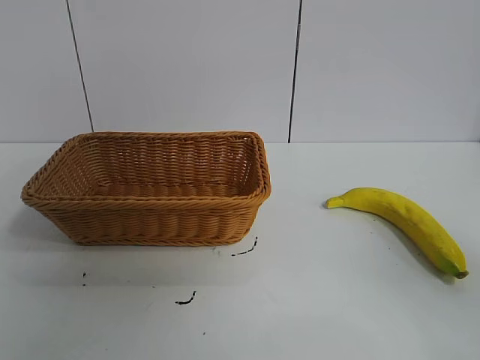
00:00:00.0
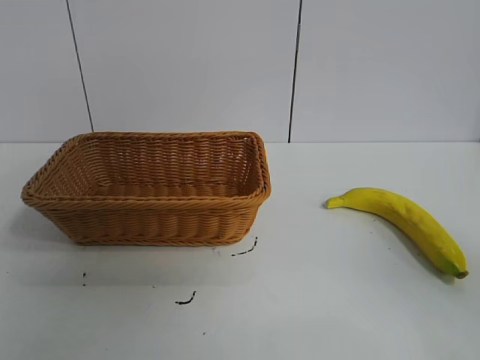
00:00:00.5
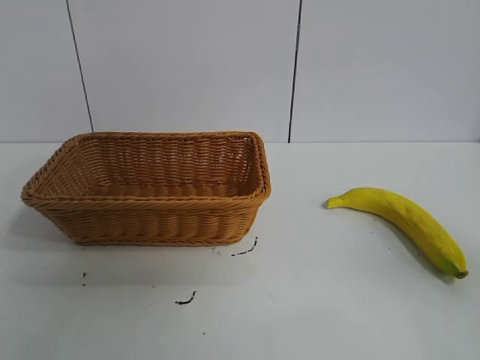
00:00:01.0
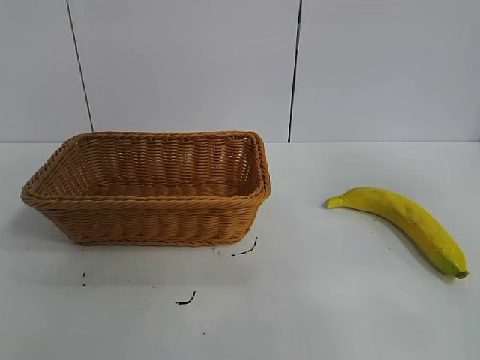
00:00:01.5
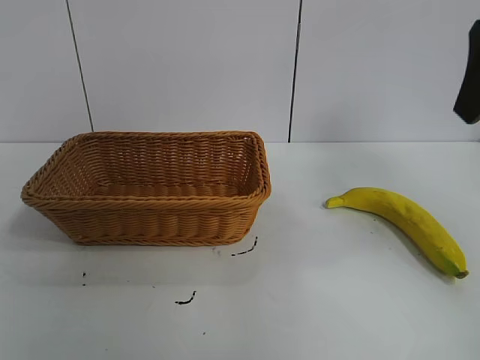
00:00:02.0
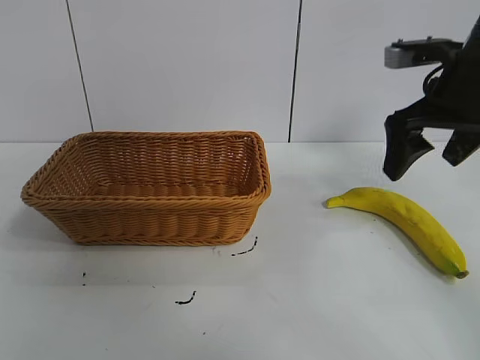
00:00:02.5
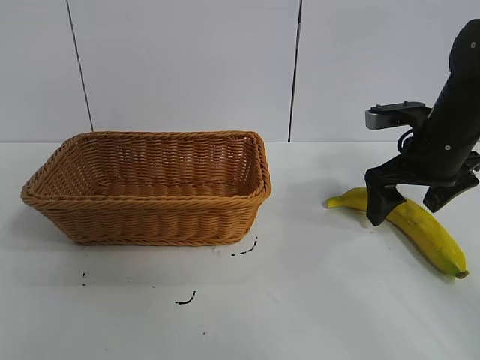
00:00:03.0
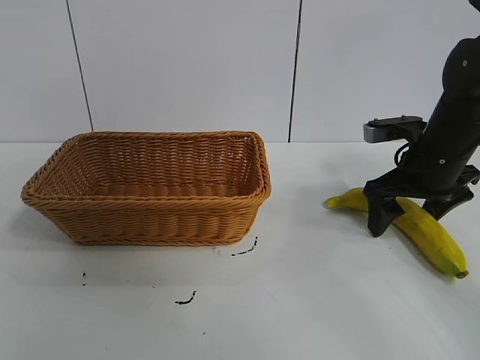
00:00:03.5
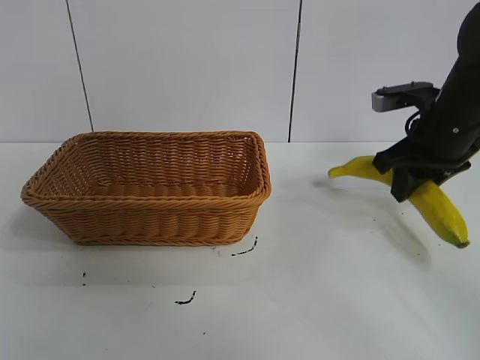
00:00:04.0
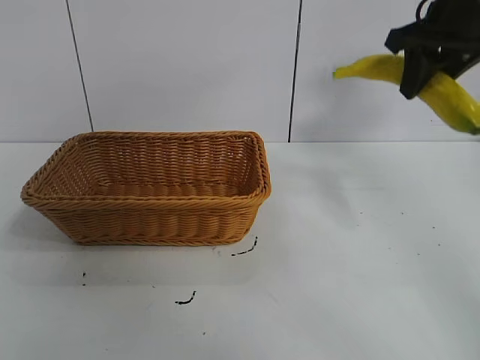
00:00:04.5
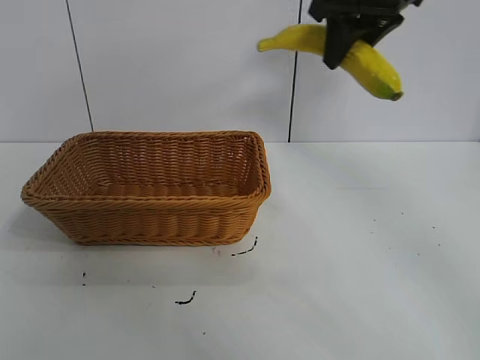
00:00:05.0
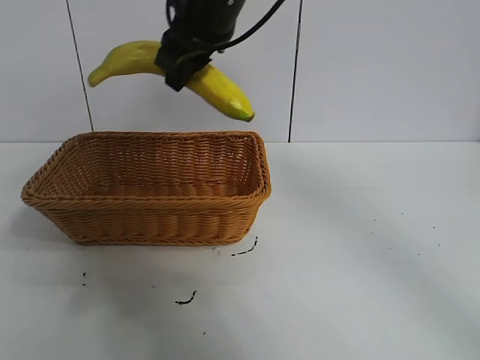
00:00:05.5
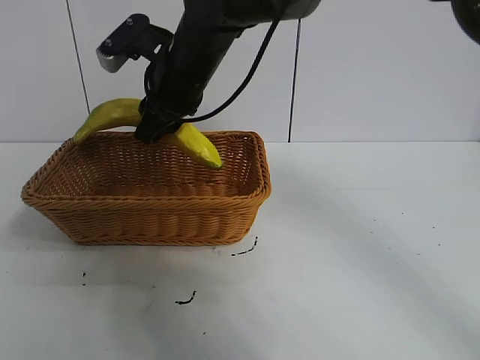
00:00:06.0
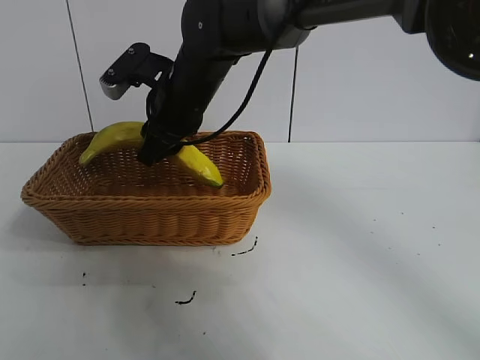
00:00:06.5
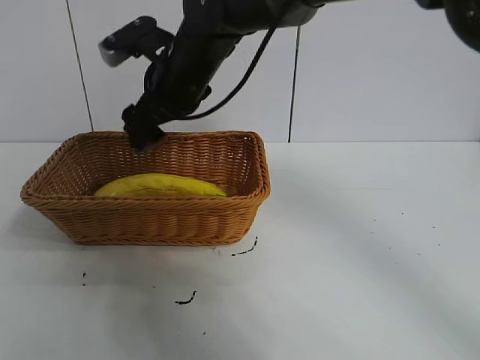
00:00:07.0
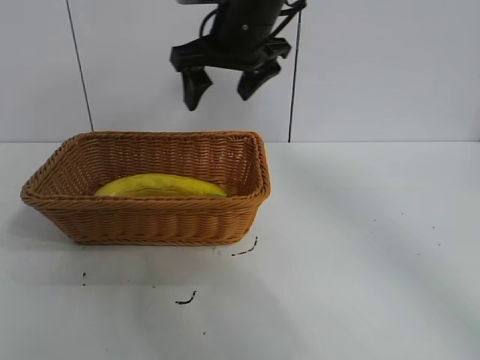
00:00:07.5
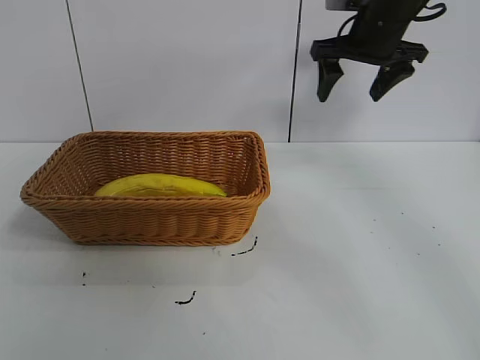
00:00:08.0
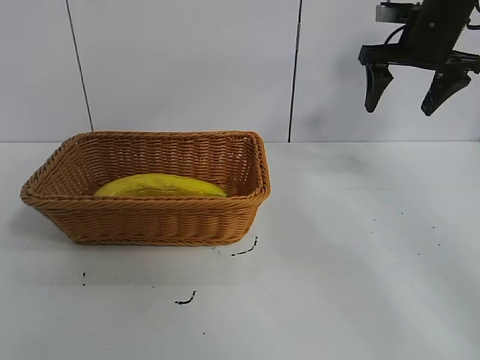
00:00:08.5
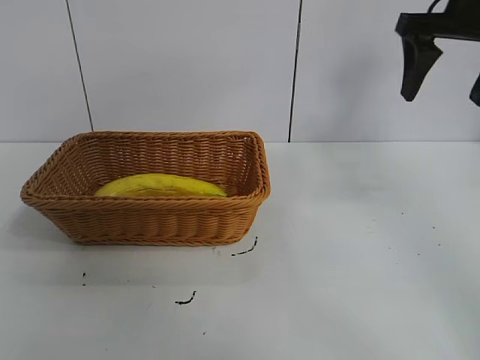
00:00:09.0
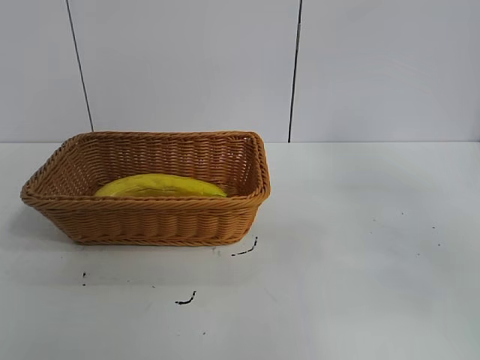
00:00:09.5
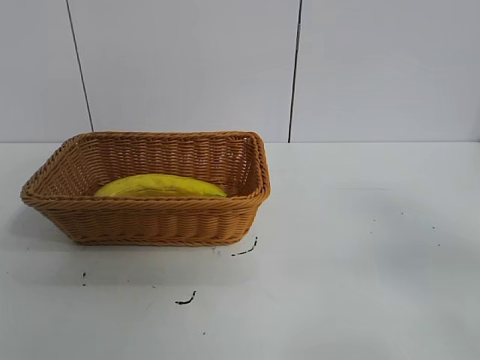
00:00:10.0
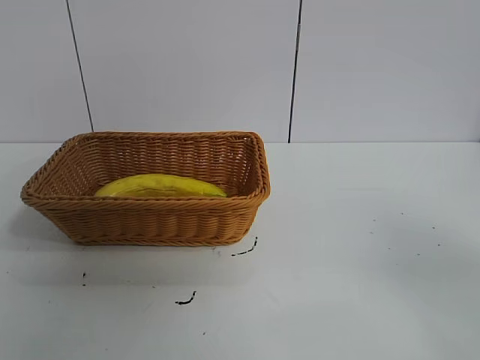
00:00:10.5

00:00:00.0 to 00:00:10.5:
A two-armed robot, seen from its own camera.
Task of the whole recording: pick up the banana and put it into the basket.
Step, 00:00:01.0 to 00:00:03.5: Grasp the banana with right gripper.
Step, 00:00:04.0 to 00:00:06.5: Place the banana in the basket with right gripper.

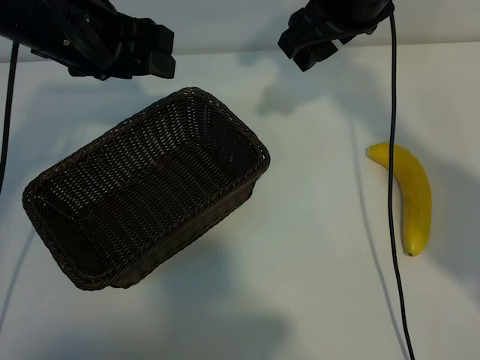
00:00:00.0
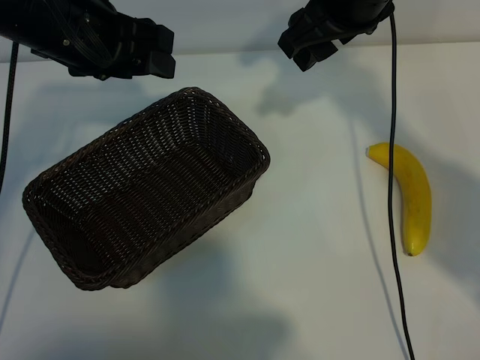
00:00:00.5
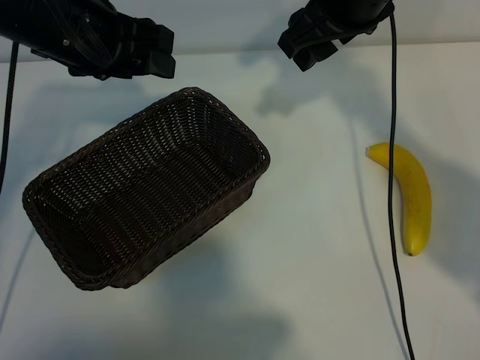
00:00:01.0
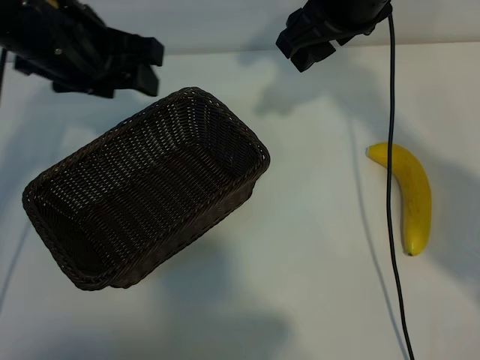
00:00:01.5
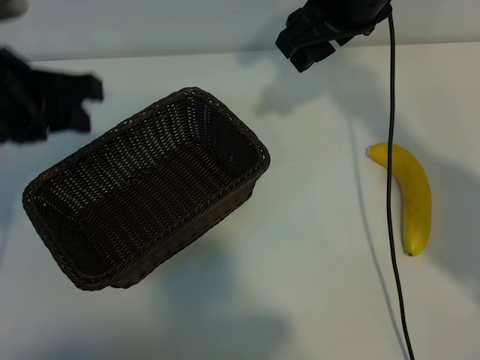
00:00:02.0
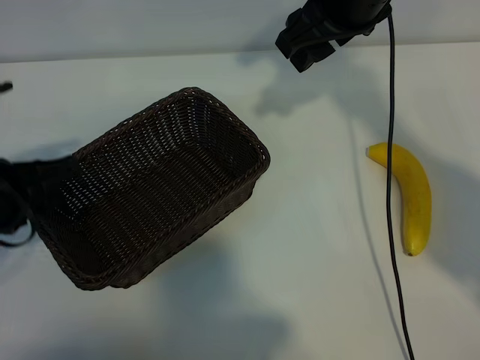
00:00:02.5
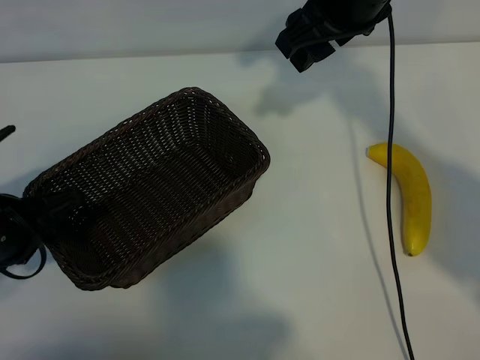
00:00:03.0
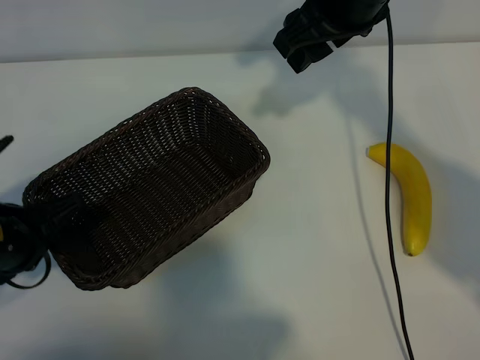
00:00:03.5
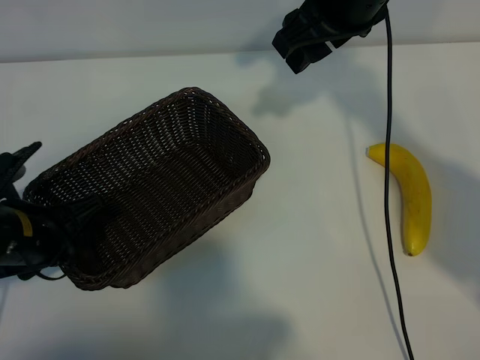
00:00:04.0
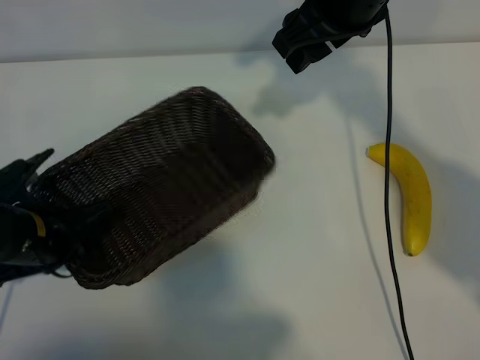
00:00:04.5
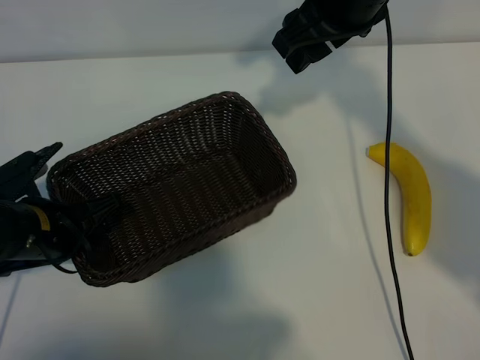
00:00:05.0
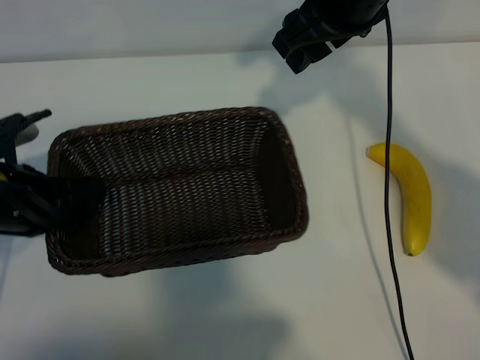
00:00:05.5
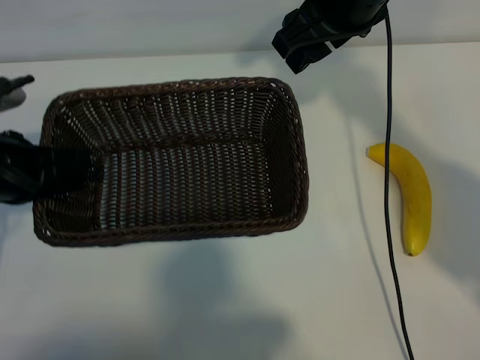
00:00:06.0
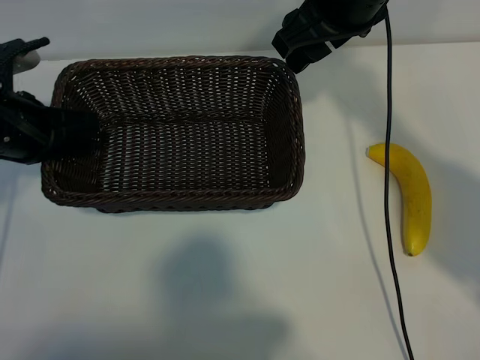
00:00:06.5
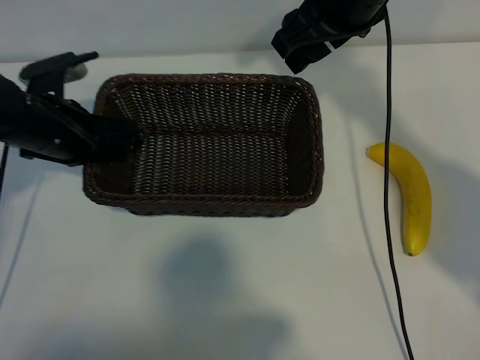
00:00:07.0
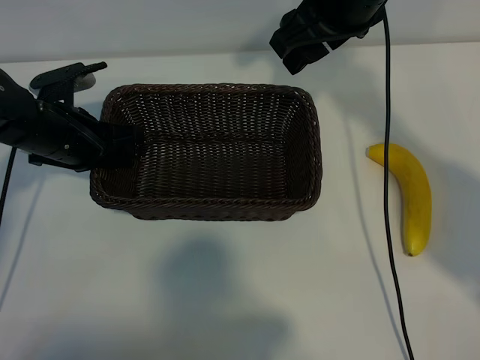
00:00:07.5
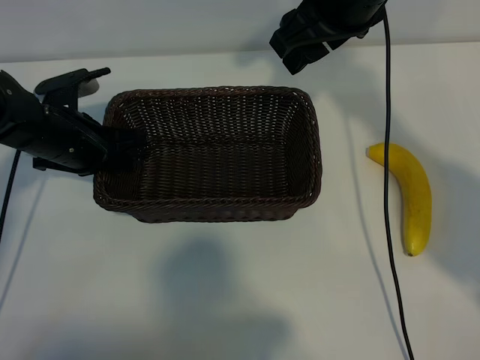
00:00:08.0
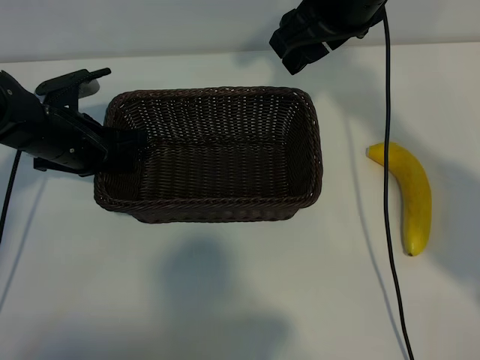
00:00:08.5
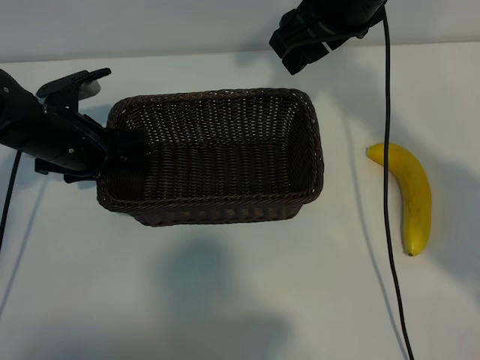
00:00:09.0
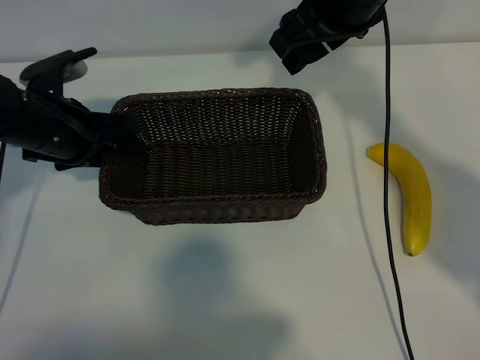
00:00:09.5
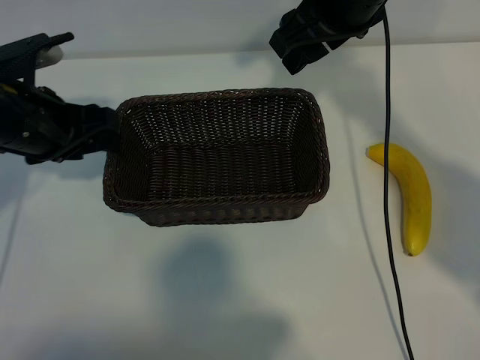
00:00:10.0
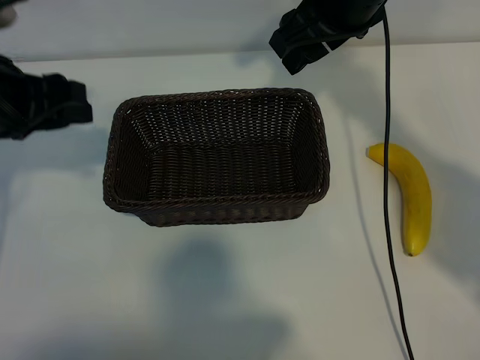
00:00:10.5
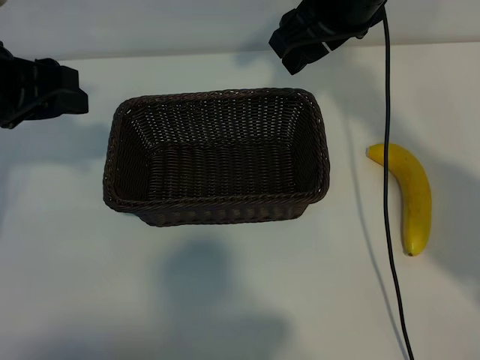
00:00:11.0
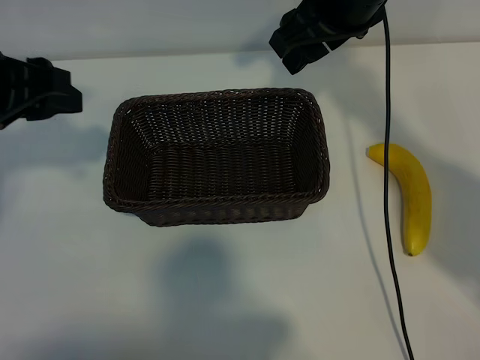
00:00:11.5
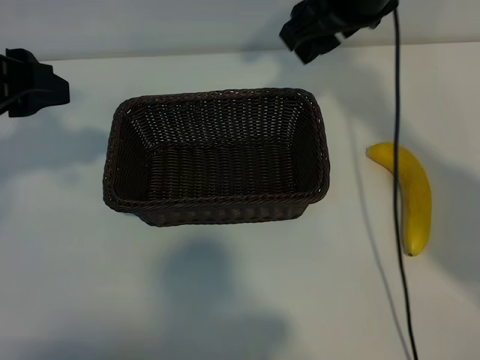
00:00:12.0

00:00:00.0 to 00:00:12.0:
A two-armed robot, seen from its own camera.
Task of the whole recording: pick up the banana and put it into the basket.
Step, 00:00:01.5 to 00:00:04.5: Grasp the basket with the left gripper.
Step, 00:00:05.0 to 00:00:10.0: Place the basket in the center of the table with the left gripper.

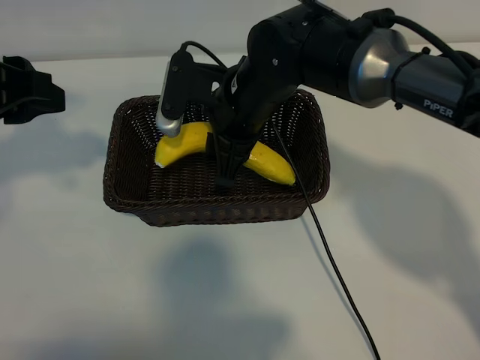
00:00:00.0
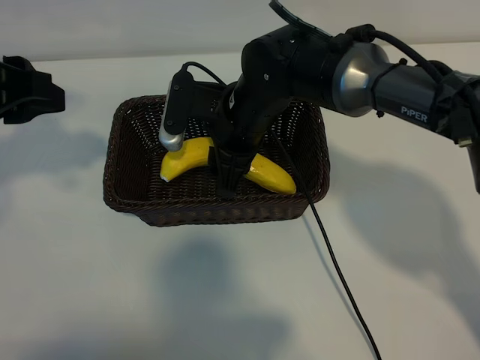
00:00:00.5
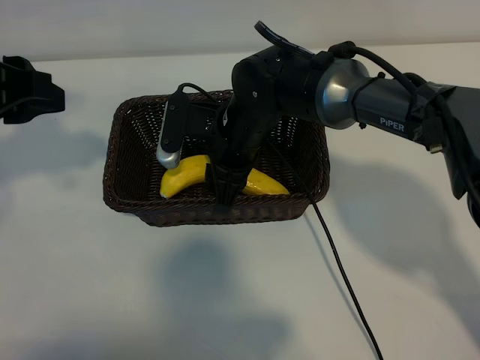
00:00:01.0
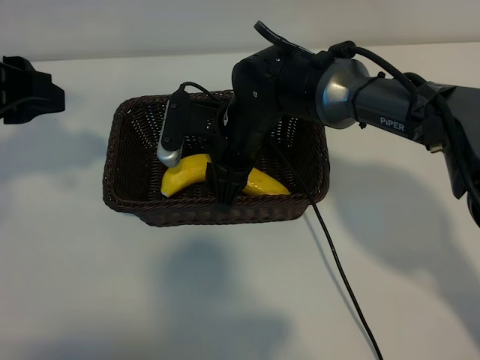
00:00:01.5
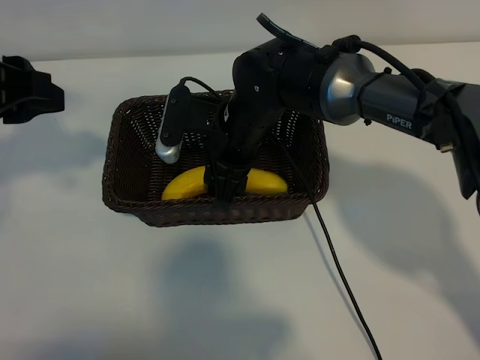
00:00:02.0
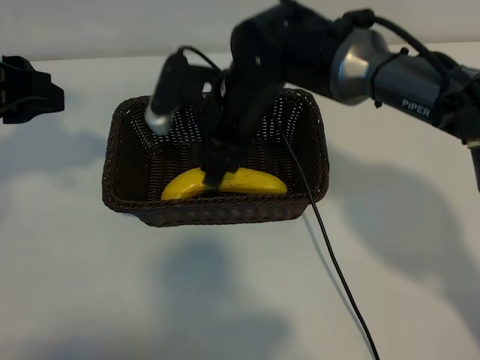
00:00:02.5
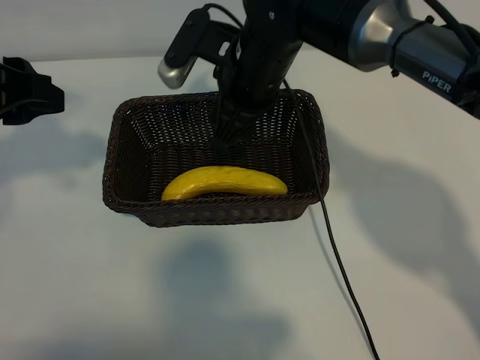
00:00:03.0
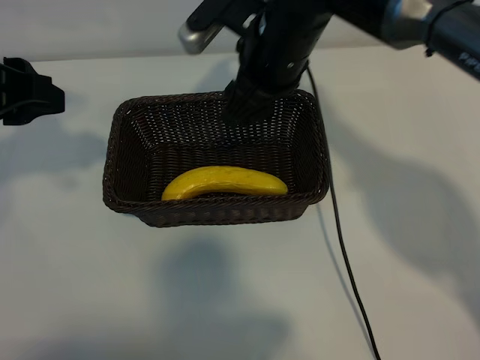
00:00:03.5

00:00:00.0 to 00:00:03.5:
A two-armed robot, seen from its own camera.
Task of the whole recording: pick up the banana and put it into the basket.
Step, 00:00:00.0 to 00:00:02.5: Place the banana in the basket with right gripper.
